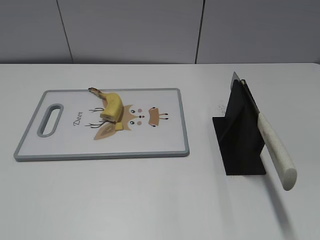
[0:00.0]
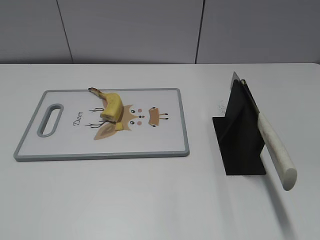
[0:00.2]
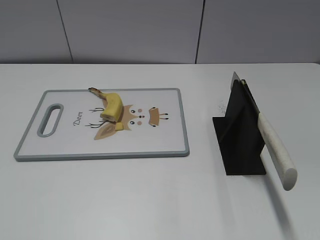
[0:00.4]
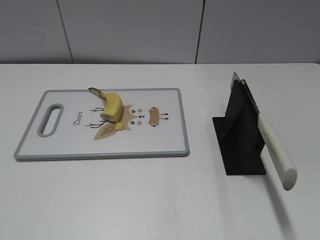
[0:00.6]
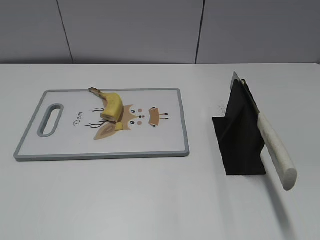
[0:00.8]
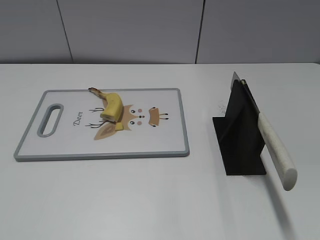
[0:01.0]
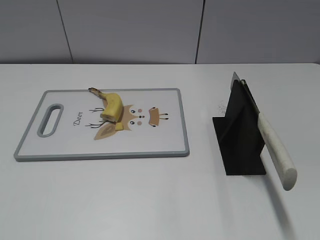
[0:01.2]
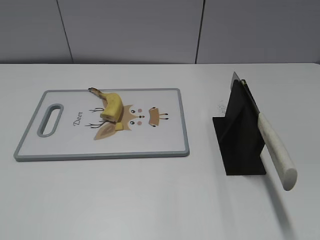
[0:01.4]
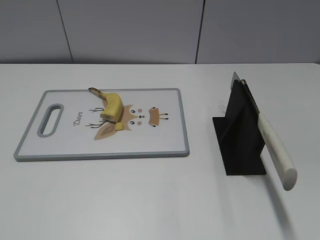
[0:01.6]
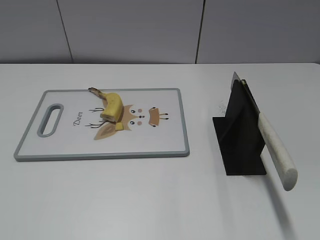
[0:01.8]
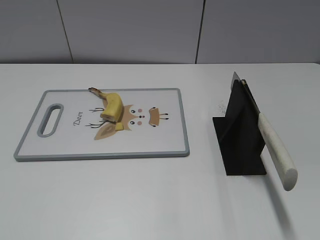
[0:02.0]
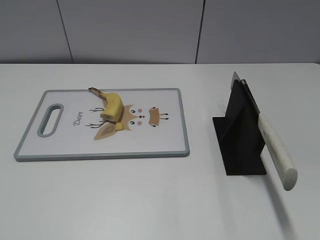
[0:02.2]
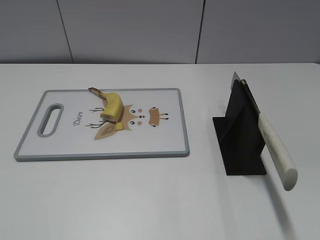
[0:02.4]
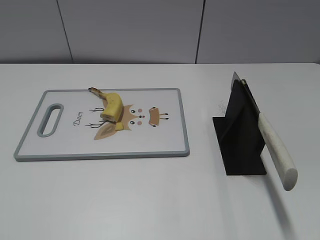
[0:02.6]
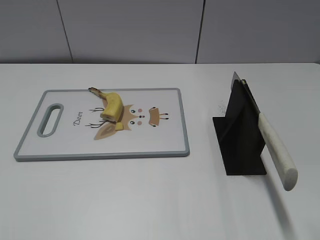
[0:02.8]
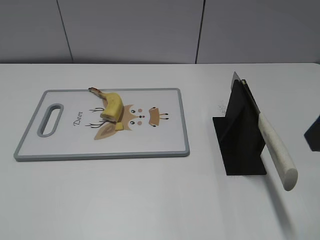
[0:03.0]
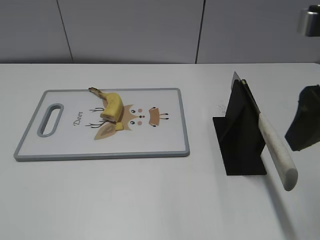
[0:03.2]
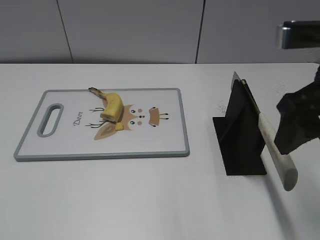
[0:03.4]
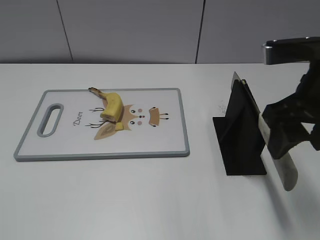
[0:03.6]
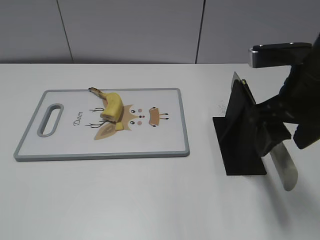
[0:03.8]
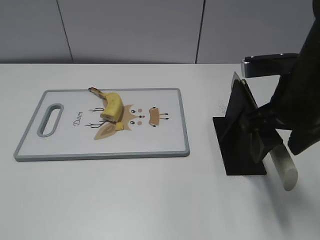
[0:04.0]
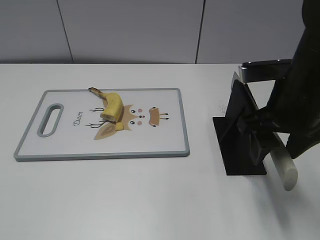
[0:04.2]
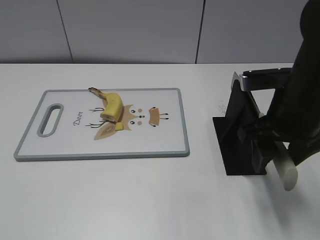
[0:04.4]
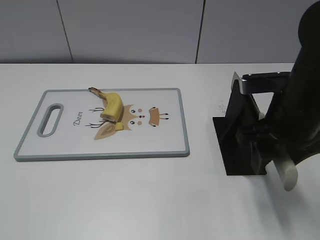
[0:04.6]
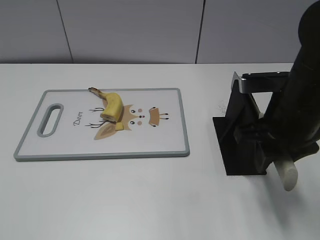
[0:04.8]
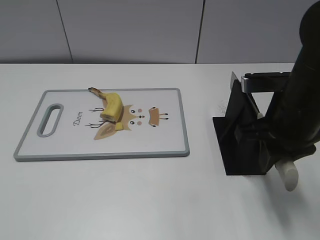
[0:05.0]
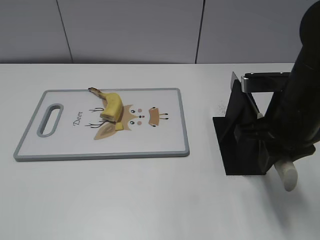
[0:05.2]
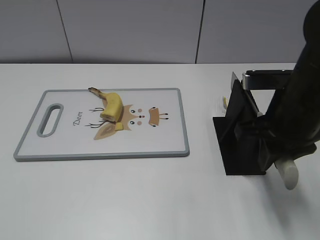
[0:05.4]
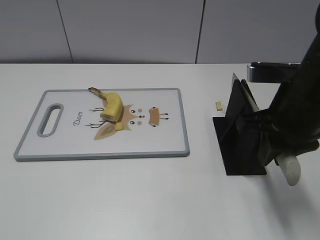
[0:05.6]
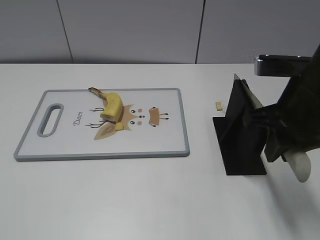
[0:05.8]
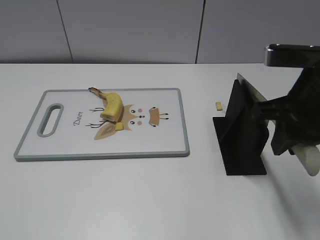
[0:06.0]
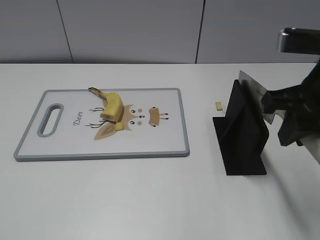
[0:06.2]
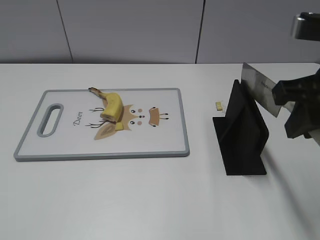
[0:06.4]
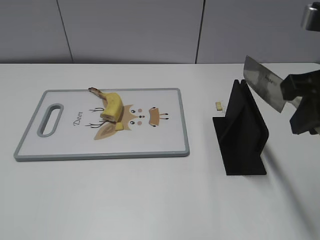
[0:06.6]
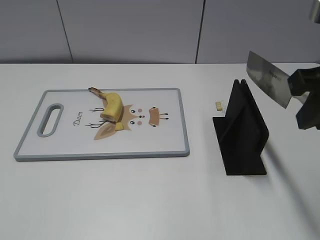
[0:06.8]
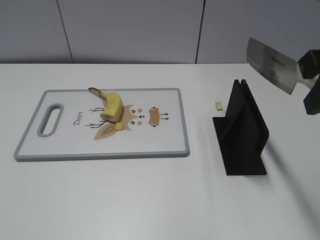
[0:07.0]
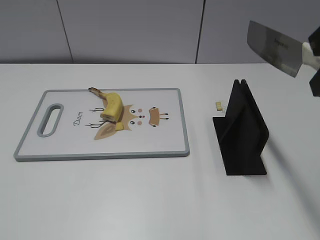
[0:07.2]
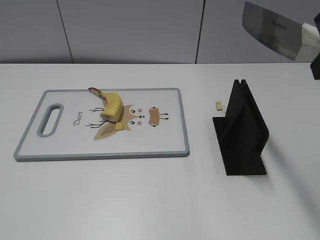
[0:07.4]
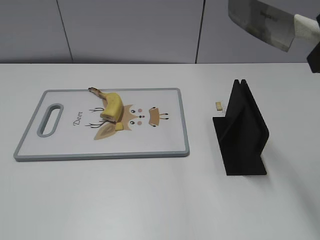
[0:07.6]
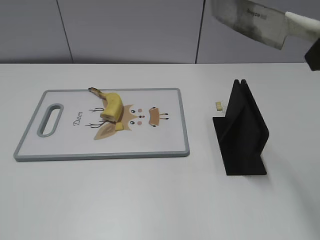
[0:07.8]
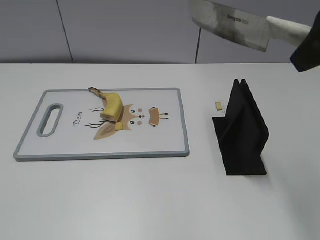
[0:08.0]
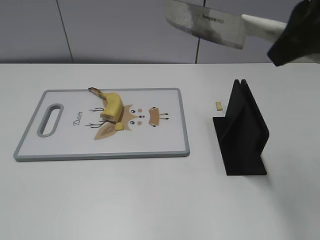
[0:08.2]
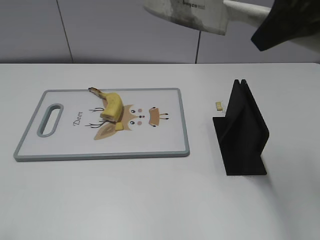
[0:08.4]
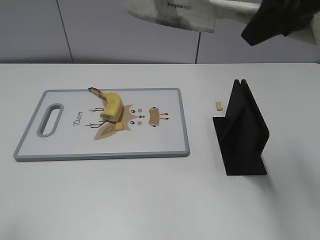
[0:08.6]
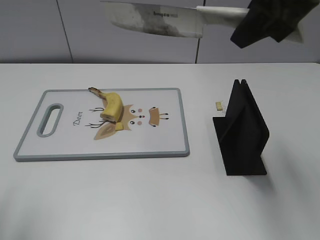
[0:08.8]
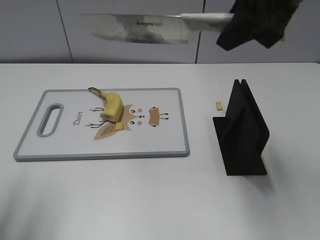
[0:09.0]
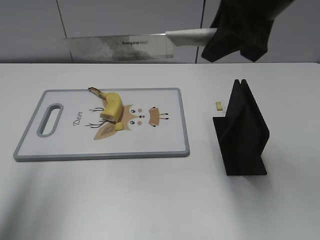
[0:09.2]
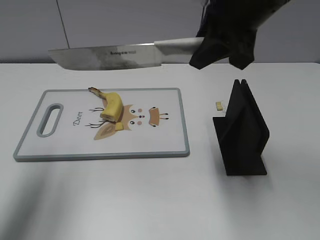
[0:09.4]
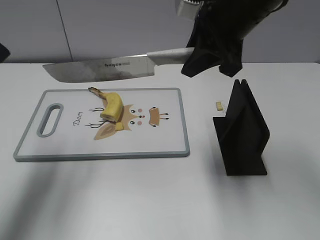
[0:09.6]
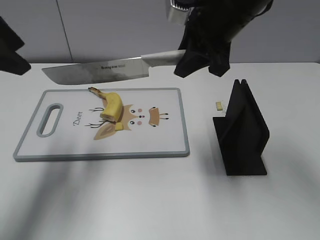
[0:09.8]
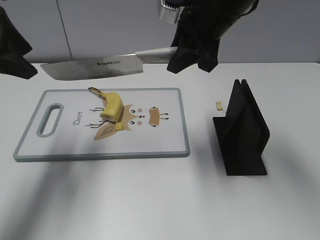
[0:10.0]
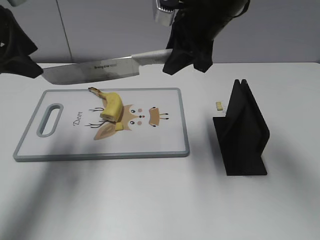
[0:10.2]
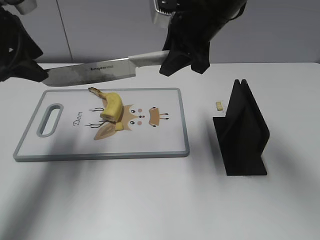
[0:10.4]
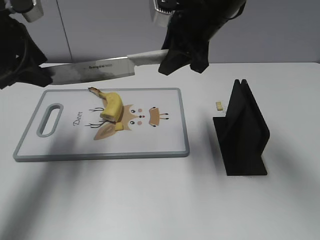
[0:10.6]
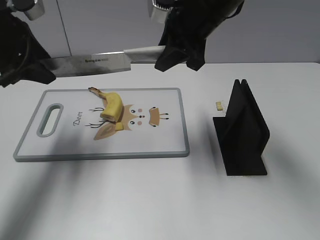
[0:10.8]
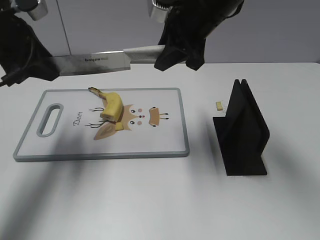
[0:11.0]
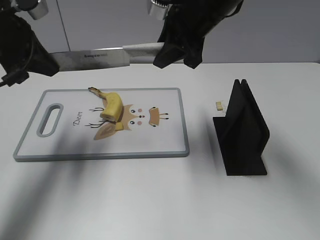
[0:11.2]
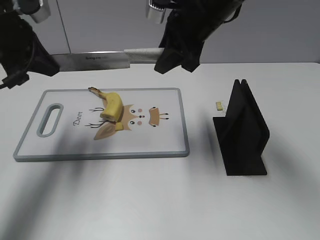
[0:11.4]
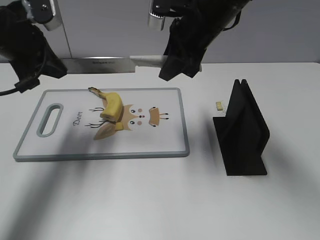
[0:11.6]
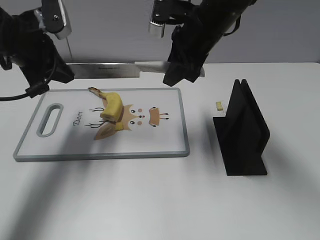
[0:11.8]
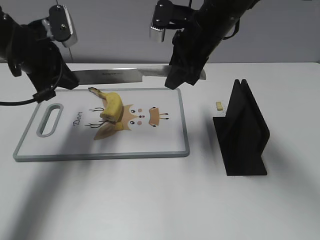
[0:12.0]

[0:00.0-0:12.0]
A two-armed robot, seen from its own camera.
Task of the whole recording: cut banana.
Step, 0:00.0 to 0:07.0: Grab the knife handle with your right hand.
0:03.0 to 0:04.4: The right gripper heads downward, forward and to the left, covering roughly 15 cm.
0:04.4 to 0:06.0: The right gripper closes.
0:06.0 to 0:07.6: The right gripper travels upward by roughly 15 cm.
0:07.6 to 0:09.0: The left gripper shifts approximately 20 cm forward and upward; the right gripper is displaced forward and to the left by approximately 10 cm.
0:09.0 to 0:10.4: The left gripper is displaced forward and downward by some 20 cm. Meanwhile the right gripper goes about 15 cm forward, downward and to the left.
0:10.4 to 0:12.0: The left gripper is displaced downward by approximately 5 cm, and closes up.

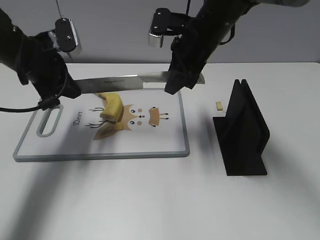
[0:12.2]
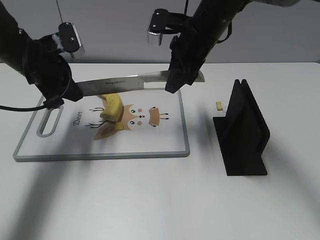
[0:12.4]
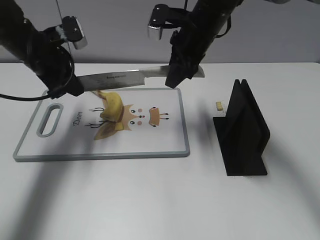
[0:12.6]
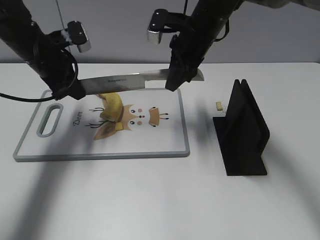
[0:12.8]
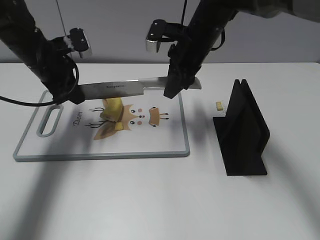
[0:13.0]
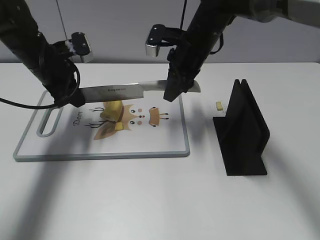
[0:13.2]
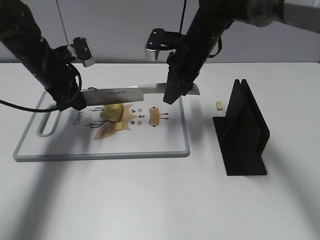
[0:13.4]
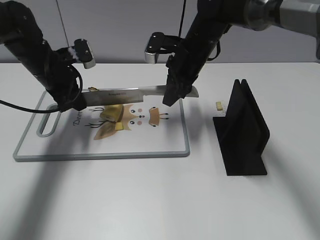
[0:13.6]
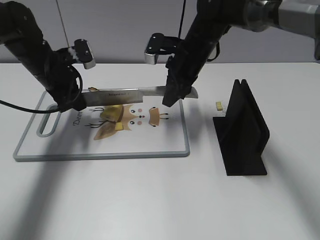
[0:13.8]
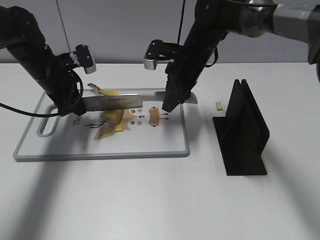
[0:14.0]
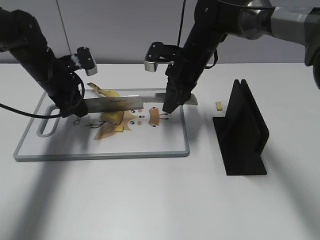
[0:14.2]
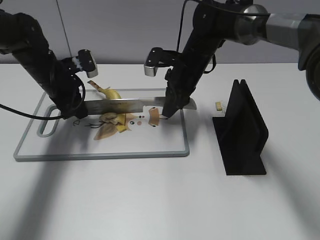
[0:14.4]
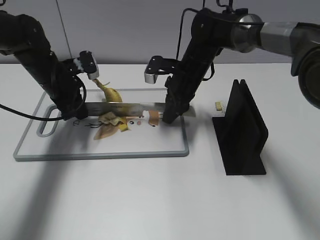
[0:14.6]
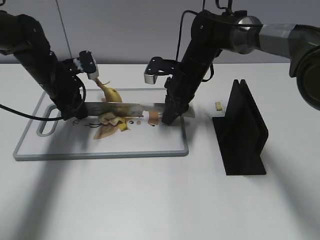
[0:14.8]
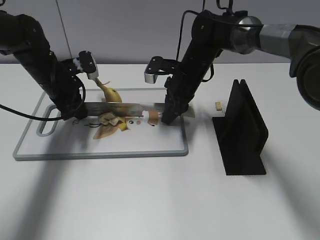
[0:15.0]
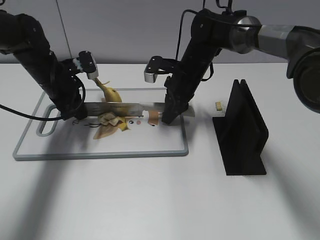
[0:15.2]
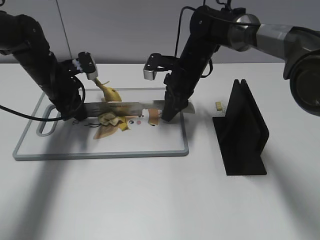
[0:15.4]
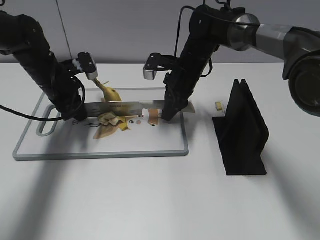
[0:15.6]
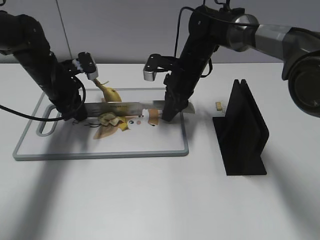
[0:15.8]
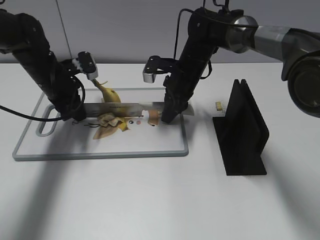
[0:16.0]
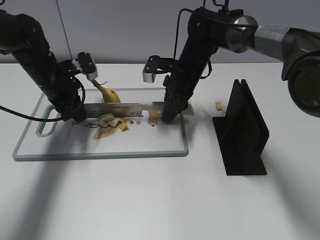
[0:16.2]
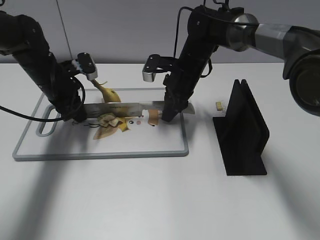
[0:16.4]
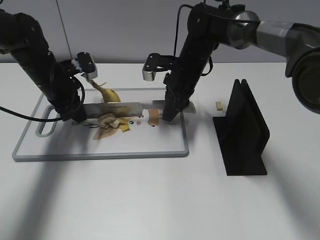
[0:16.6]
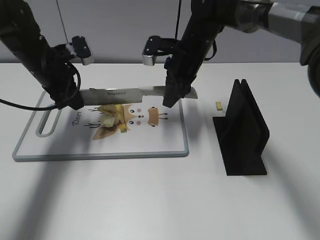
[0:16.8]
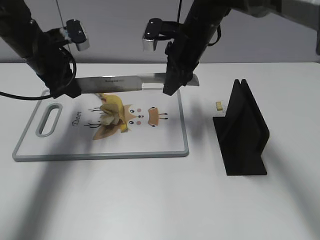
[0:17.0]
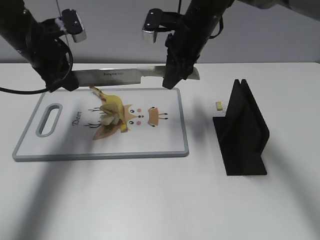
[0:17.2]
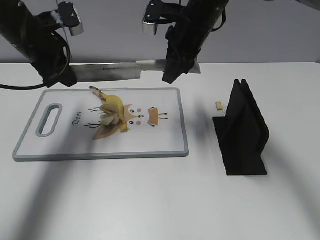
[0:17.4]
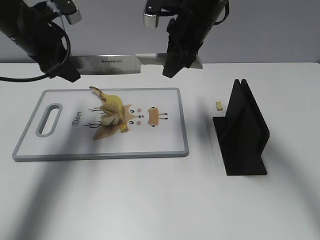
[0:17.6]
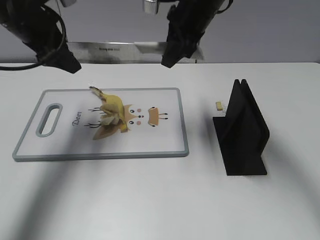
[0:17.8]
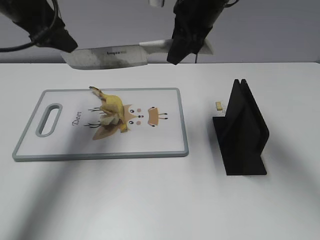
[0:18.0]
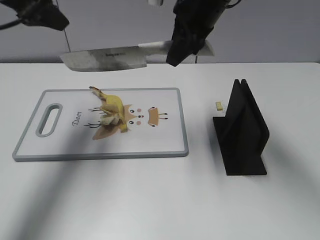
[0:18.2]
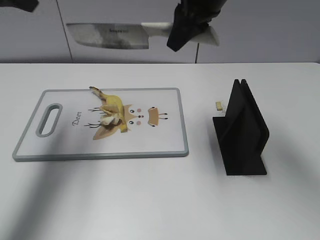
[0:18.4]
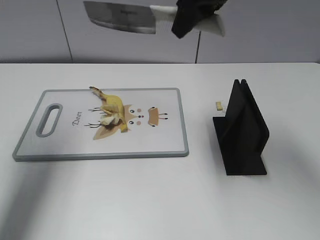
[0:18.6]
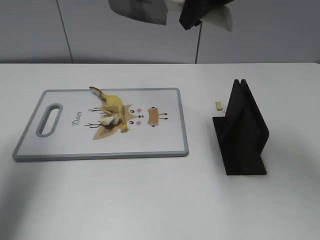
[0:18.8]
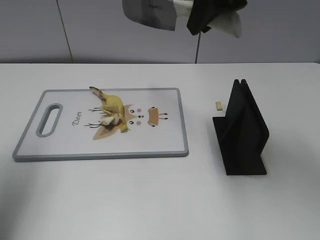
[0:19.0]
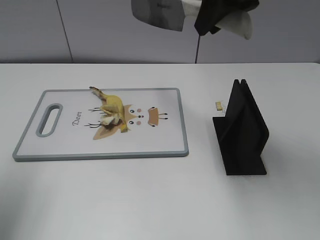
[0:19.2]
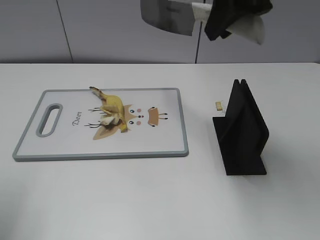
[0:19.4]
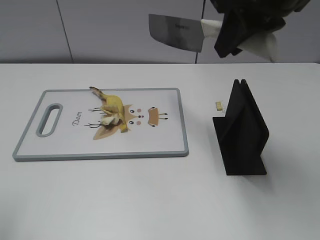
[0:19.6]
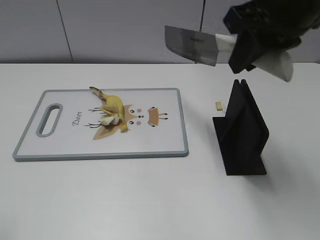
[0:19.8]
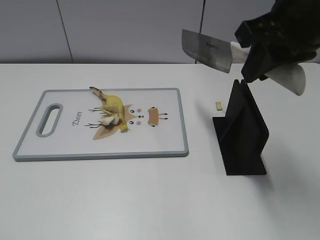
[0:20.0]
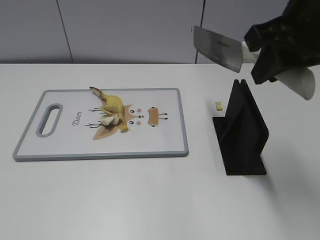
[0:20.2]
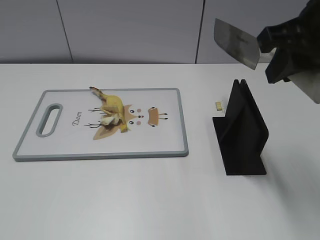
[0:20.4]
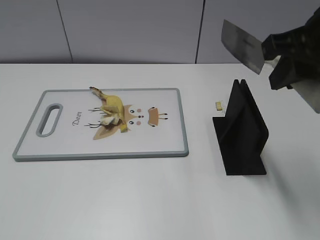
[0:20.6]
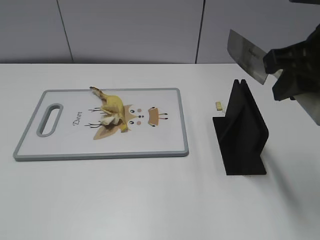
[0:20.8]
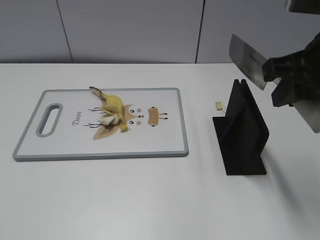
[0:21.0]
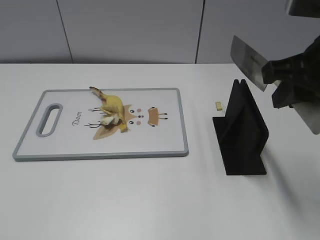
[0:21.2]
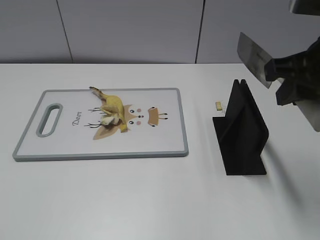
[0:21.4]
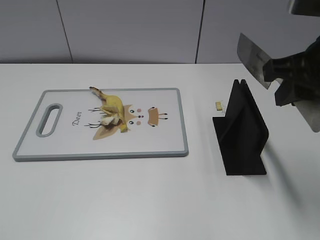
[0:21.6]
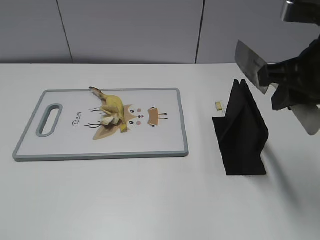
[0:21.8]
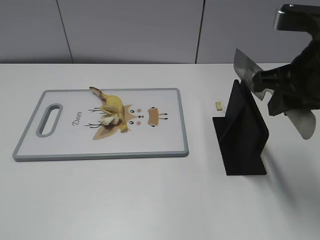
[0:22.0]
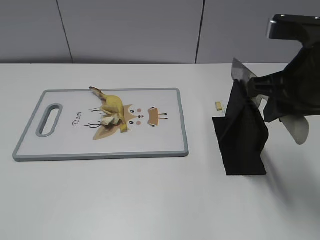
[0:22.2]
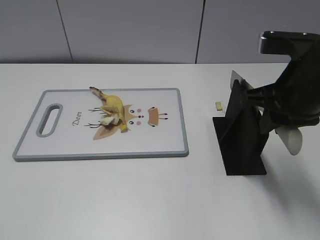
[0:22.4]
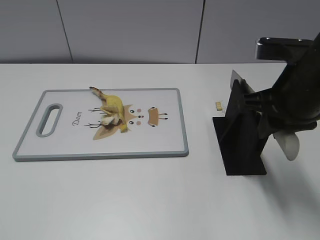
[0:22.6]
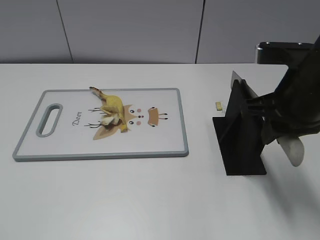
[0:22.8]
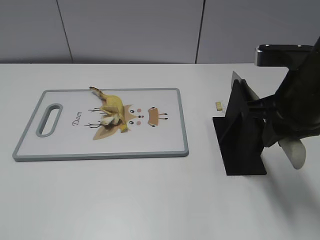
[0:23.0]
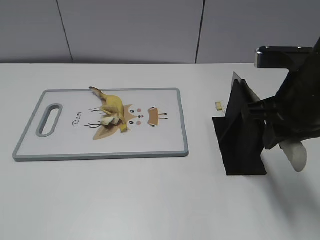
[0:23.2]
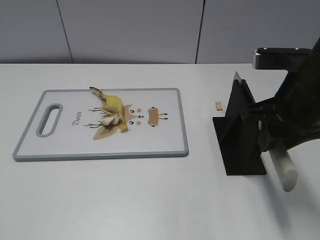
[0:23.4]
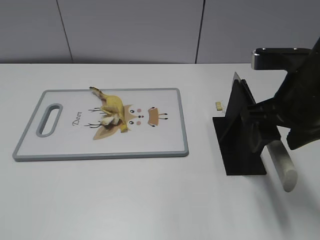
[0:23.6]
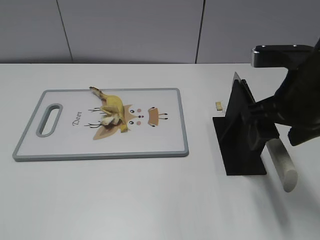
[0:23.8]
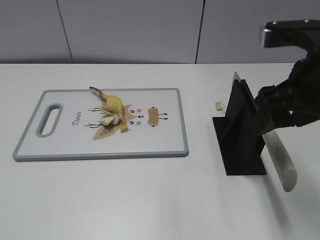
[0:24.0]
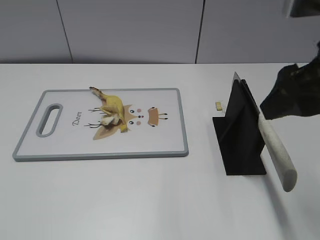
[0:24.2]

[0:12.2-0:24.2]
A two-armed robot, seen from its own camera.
Task of the whole recording: cut banana.
Step, 0:14.0 to 0:18.4: Cut the banana with your right hand.
Step, 0:18.6 to 0:21.8: Lift the knife with your right hand.
0:12.2 to 0:13.8: The left gripper changes place by some 5 cm. The right gripper shifts about 5 cm downward.
0:13.8 to 0:15.2: The right gripper shifts approximately 5 cm downward.
0:15.2 to 0:16.6: Both grippers stay about where they are.
0:16.6 to 0:18.2: Both grippers travel together upward, roughly 20 cm. The left gripper opens up.
0:18.2 to 0:19.8: The right gripper shifts roughly 15 cm backward, to the right and upward. The left gripper moves backward, roughly 25 cm.
0:19.8 to 0:21.2: The left gripper goes some 10 cm backward. The right gripper moves backward and to the right, roughly 5 cm.
0:21.2 to 0:22.6: The right gripper shifts roughly 5 cm downward.
0:22.6 to 0:24.2: The right gripper moves upward, about 5 cm, and opens up.
